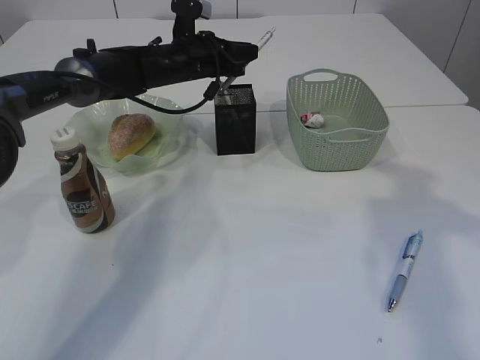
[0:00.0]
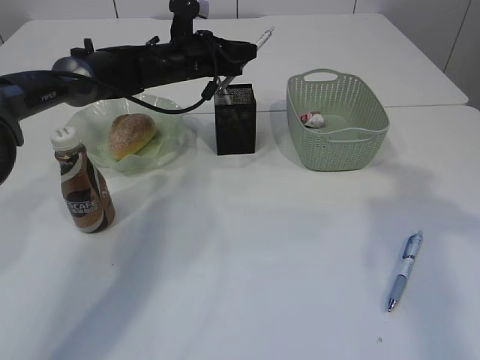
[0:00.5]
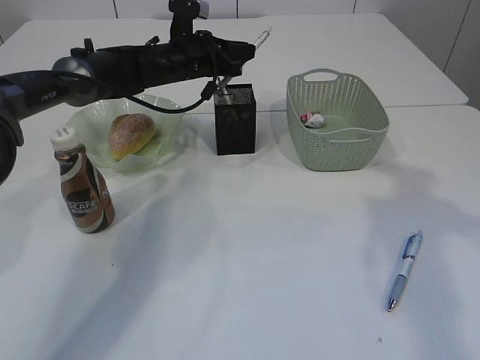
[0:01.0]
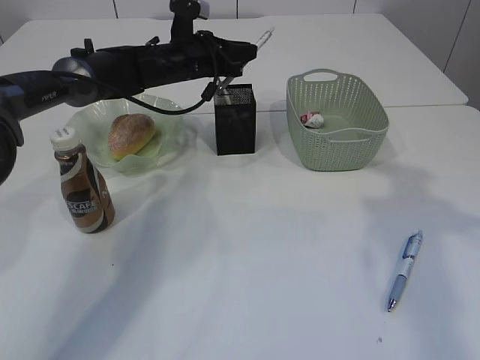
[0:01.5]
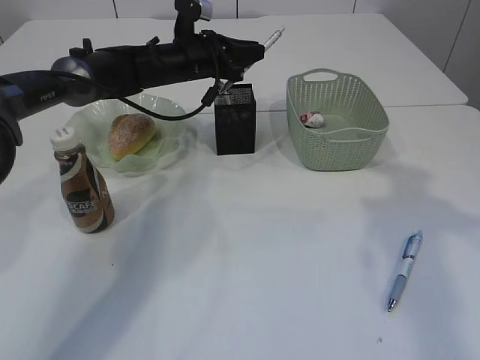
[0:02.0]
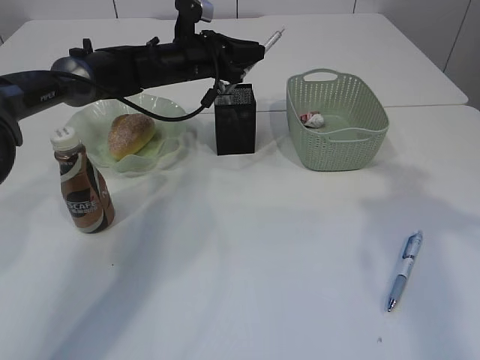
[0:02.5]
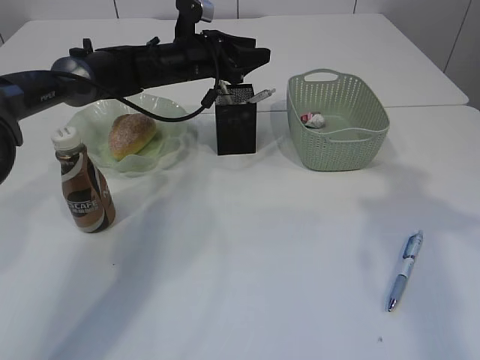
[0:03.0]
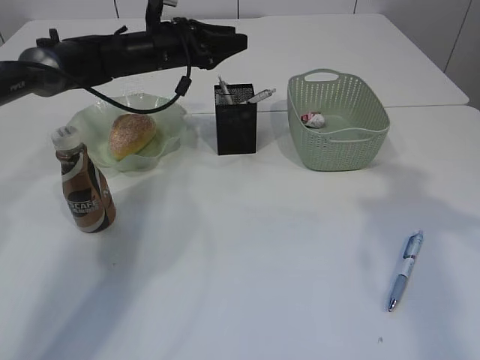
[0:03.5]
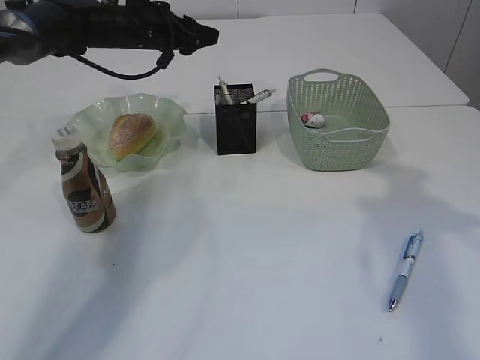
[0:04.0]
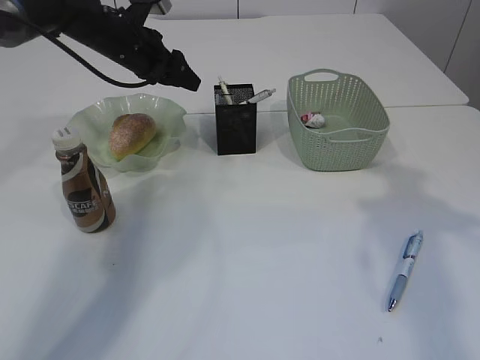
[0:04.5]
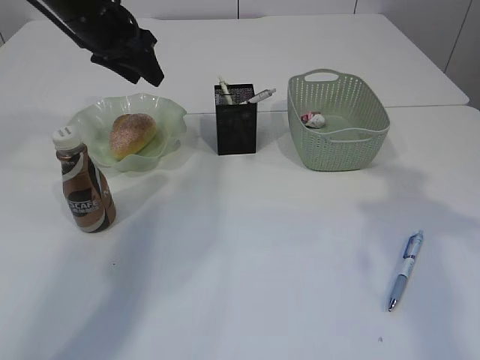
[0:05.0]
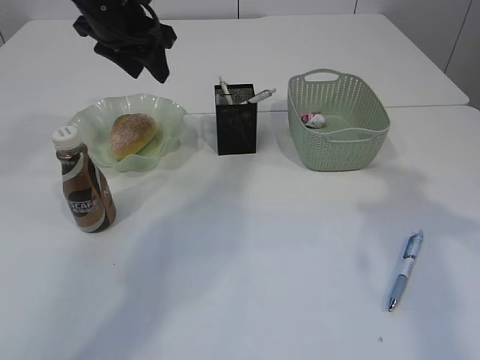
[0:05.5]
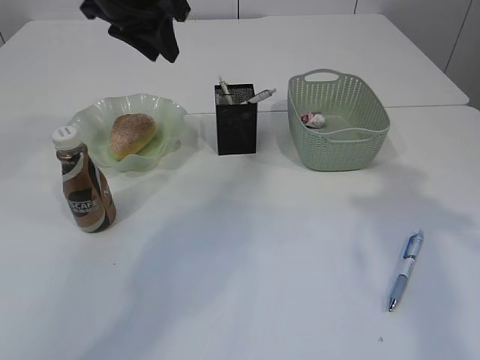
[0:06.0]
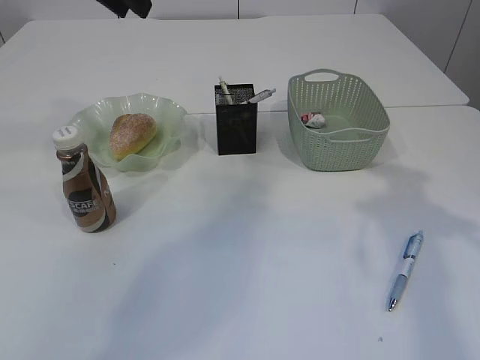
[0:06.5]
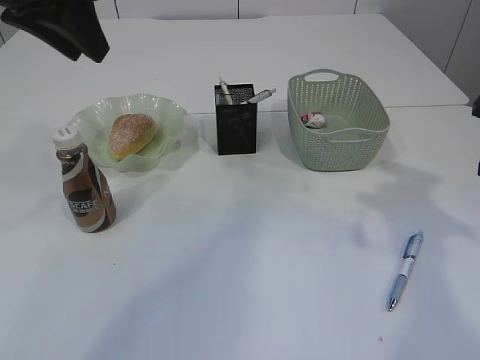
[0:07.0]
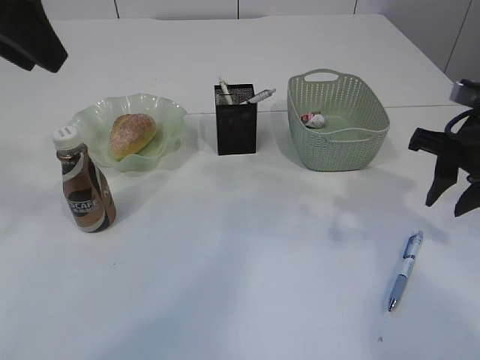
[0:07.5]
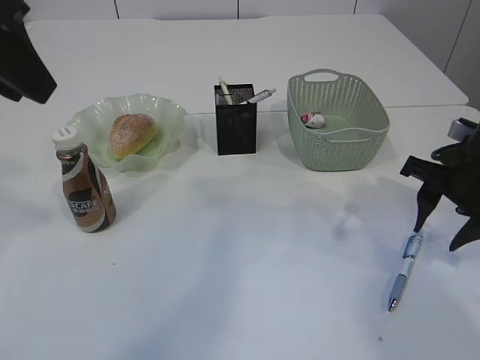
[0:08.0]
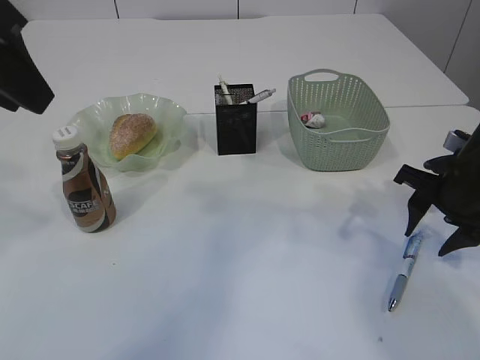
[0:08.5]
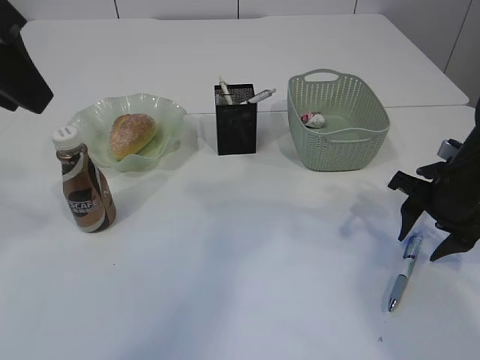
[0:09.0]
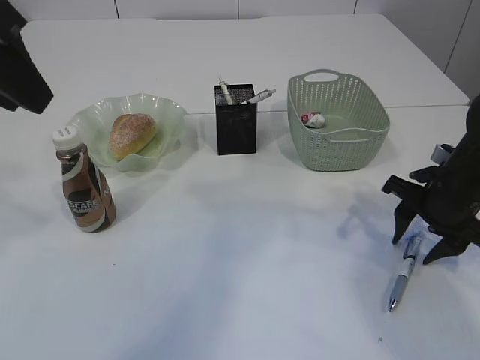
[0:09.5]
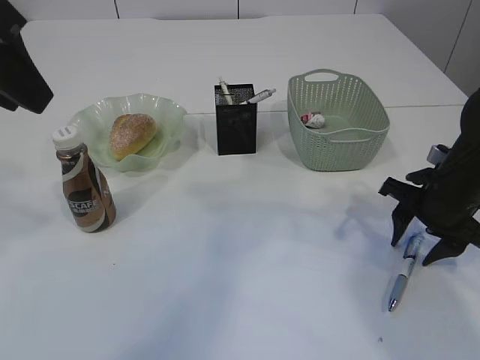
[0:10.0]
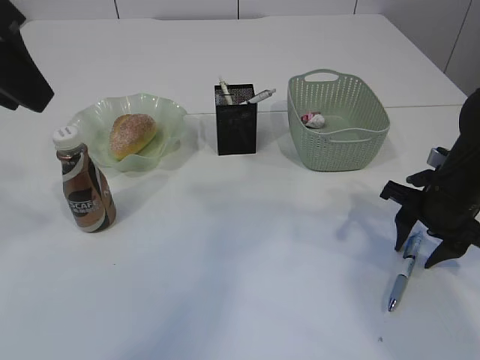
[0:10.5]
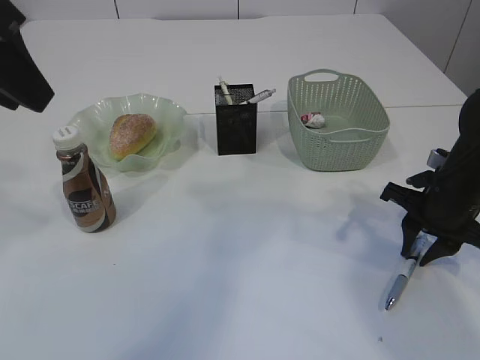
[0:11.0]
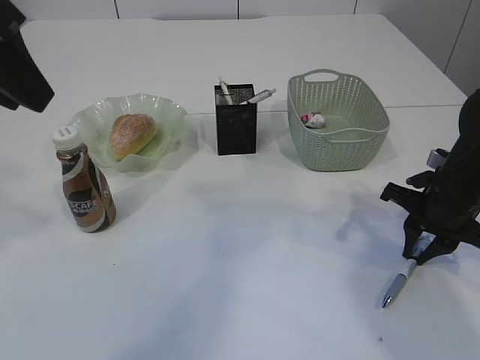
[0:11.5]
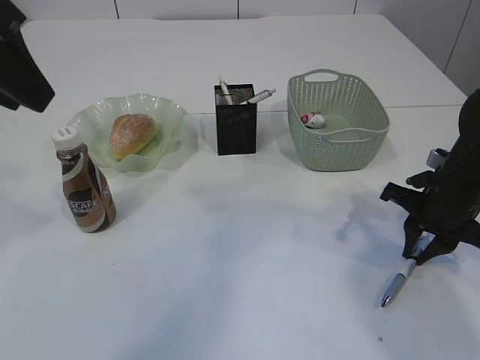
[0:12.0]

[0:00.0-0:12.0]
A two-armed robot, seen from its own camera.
Step, 0.0 to 3.0 s: Place the pen into the pen holder.
0.0 to 2.0 s: The grippers make only small movements.
2.0 to 4.0 s: The left gripper goes approximately 5 cm to the left, and opens its fingers.
4.0 to 6.0 s: The left gripper travels backward and upward by some 15 cm.
6.0 to 8.0 s: The left gripper heads backward, covering approximately 20 cm. The right gripper moves downward and forward, approximately 20 cm.
8.0 to 10.0 s: The right gripper goes roughly 5 cm downward.
10.0 to 12.0 s: The right gripper closes up.

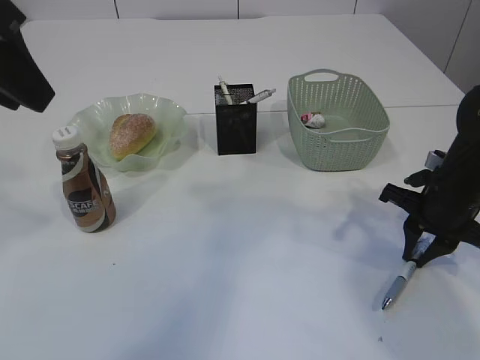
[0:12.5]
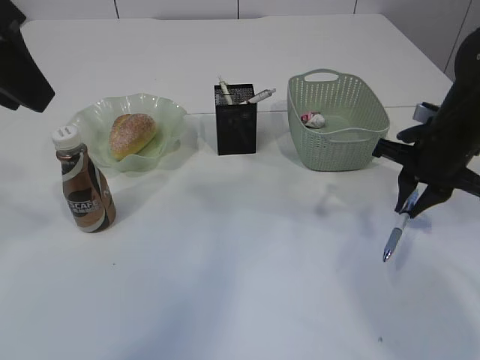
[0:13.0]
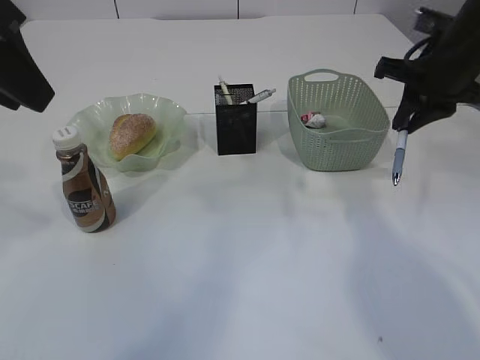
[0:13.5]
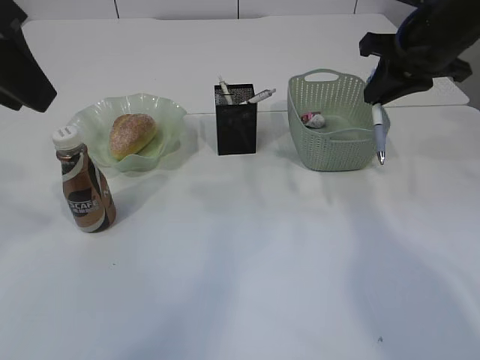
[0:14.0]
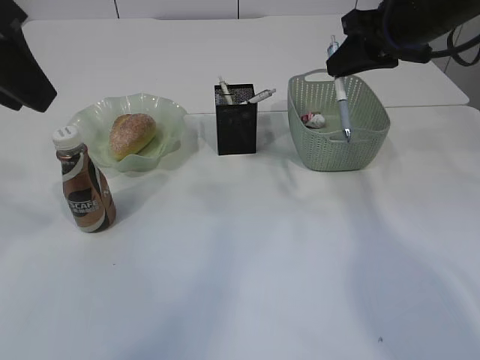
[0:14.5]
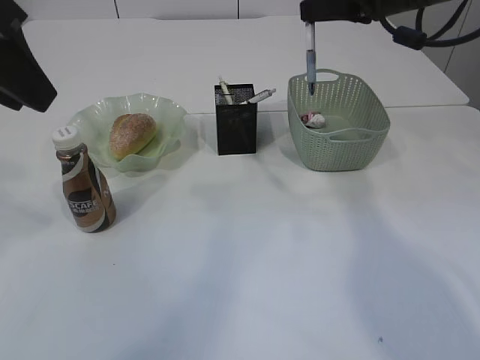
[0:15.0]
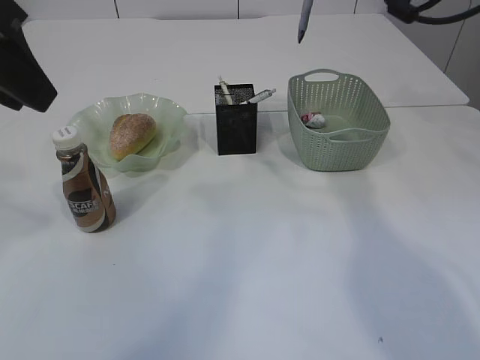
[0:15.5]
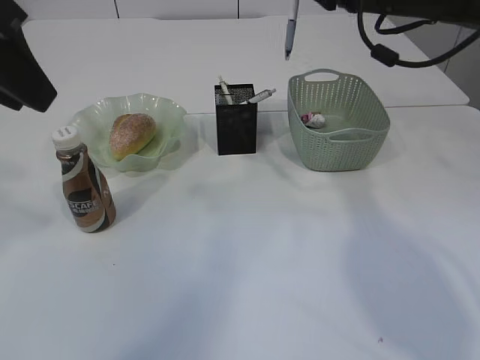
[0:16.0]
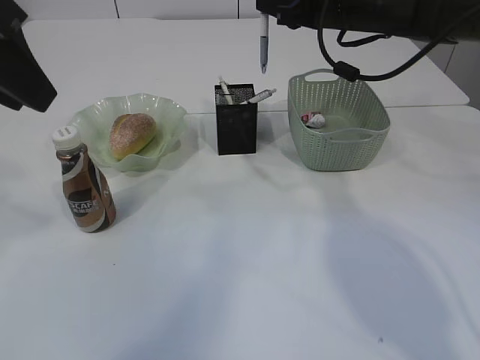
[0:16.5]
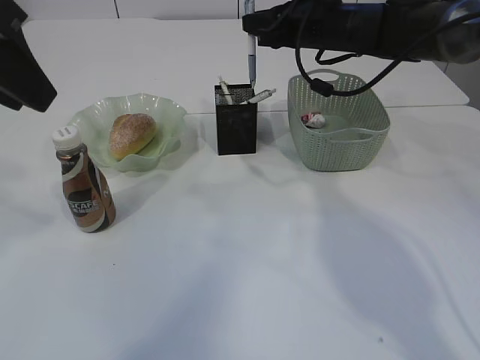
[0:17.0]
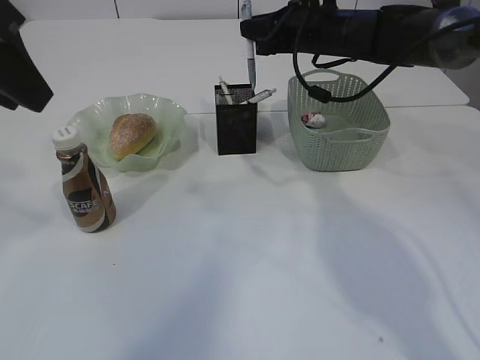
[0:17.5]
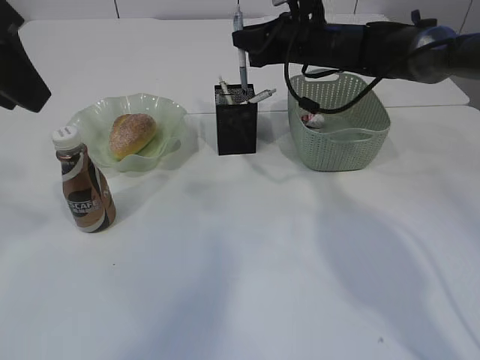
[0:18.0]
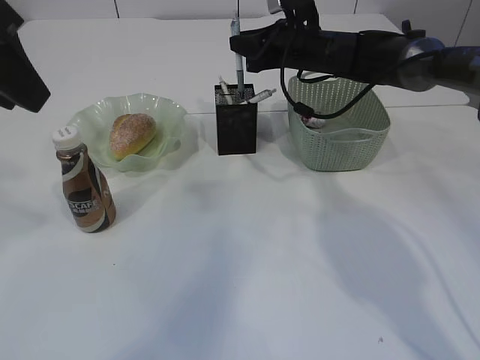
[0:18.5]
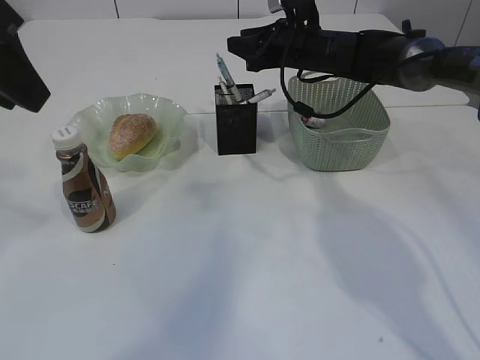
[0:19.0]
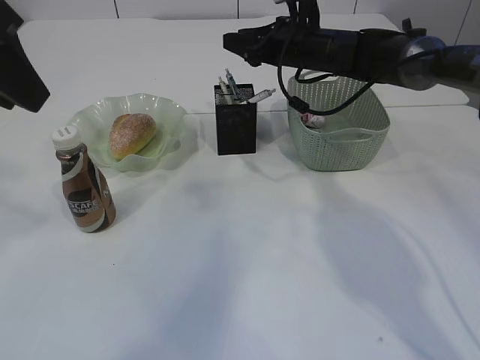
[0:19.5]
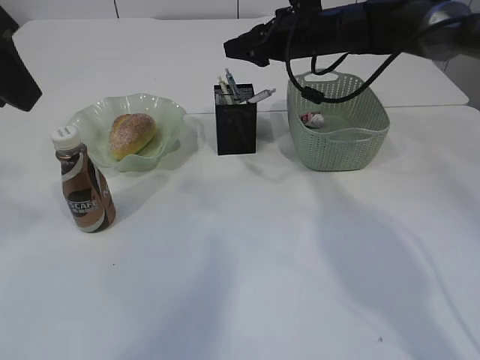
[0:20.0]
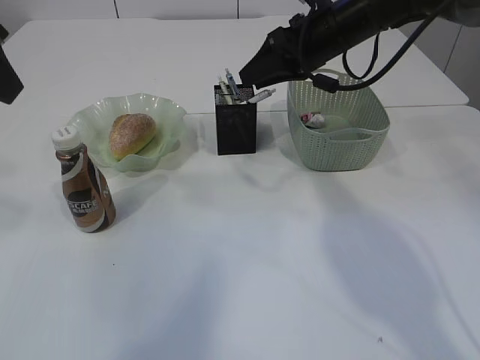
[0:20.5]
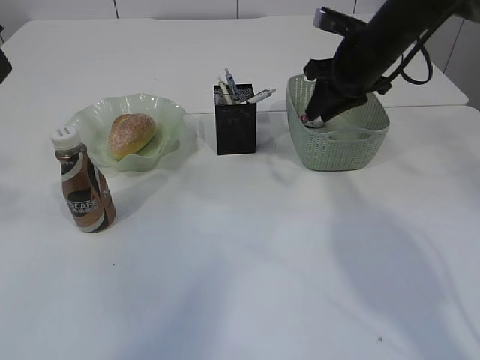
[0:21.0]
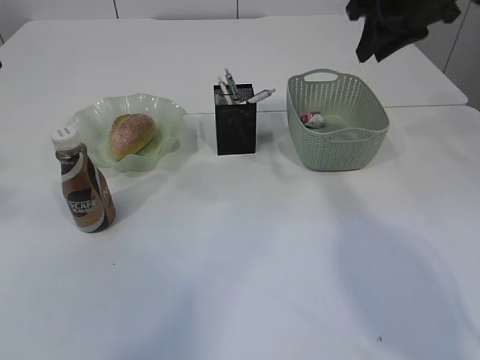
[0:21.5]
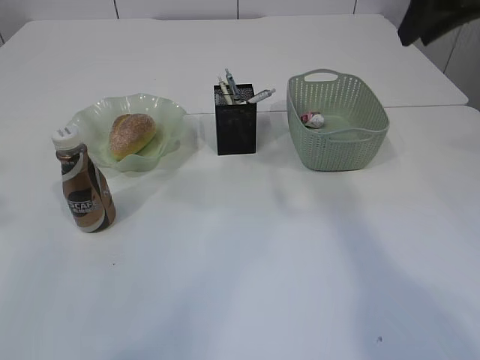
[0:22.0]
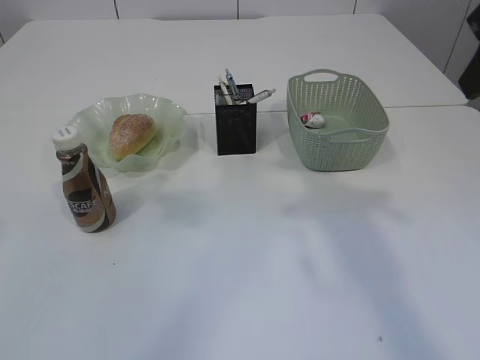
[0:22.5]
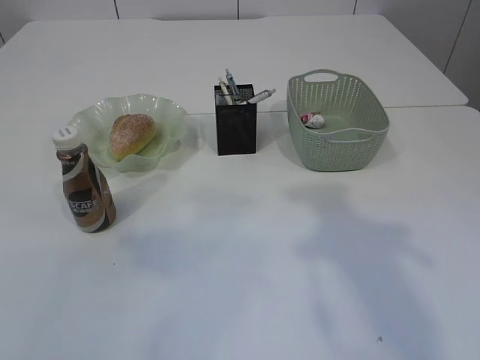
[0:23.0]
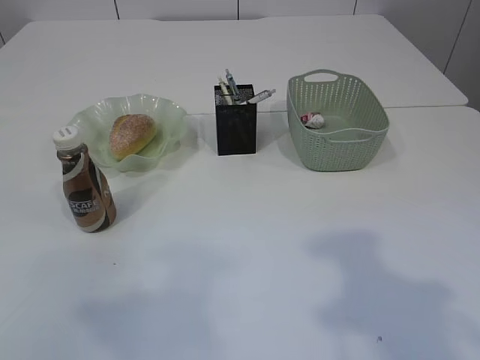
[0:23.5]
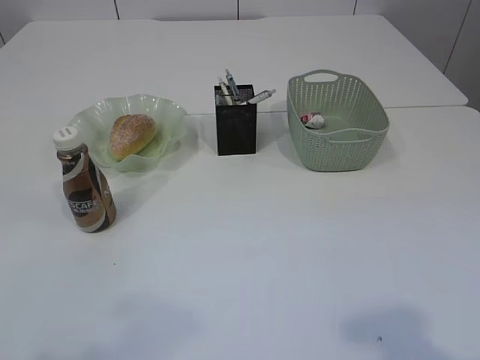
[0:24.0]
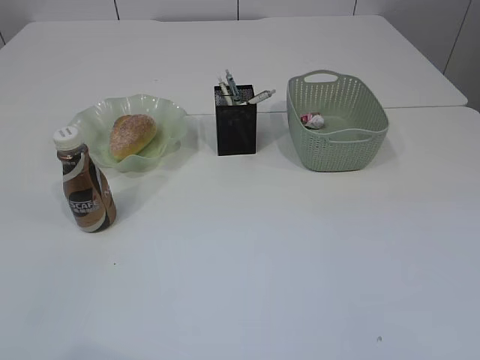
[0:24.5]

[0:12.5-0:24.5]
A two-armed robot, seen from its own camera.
Step, 13.5 to 19.5 s: Place the pen into the pen holder.
12.5 to 14.5 s: The right gripper moves upward and forward, approximately 20 cm.
14.5 to 16.5 s: The right gripper travels to the left and forward by roughly 10 cm.
16.5 to 18.5 s: The right gripper moves downward and forward, some 10 cm.
18.5 to 20.5 s: The right gripper travels backward and upward by roughly 10 cm, and opens.
20.5 to 22.5 s: The right gripper travels backward, upward and to the right by about 25 cm.
22.5 to 24.5 s: The right gripper is displaced backward by approximately 30 cm.

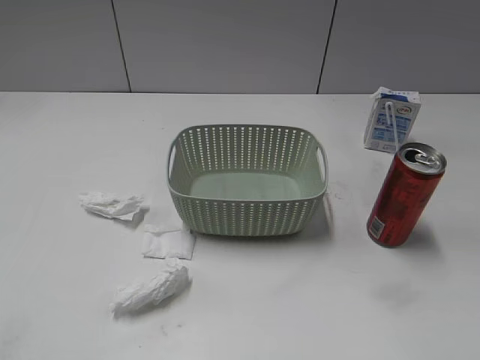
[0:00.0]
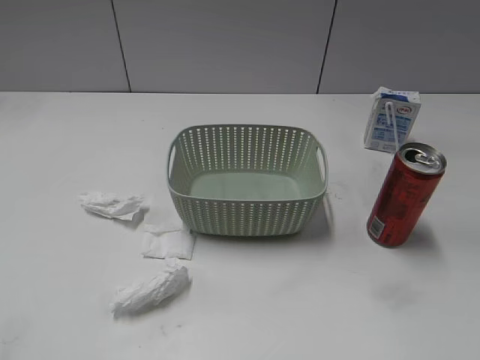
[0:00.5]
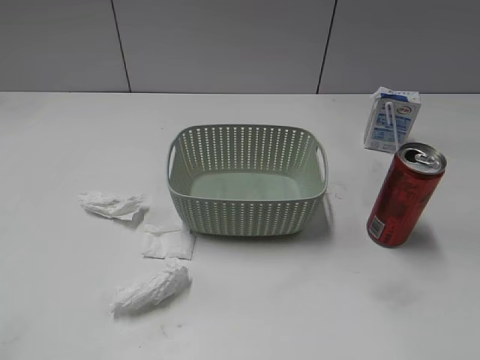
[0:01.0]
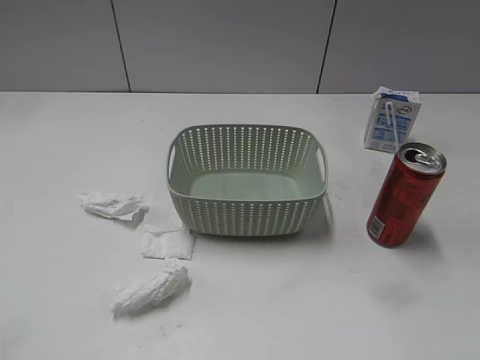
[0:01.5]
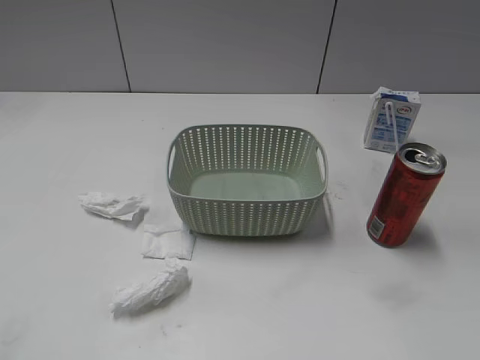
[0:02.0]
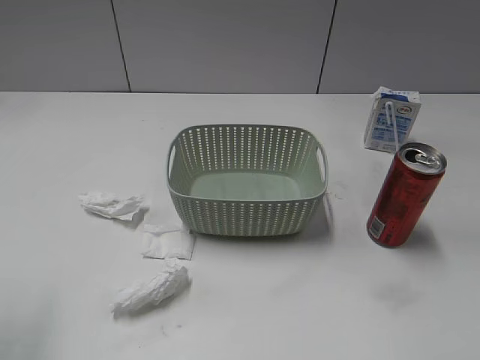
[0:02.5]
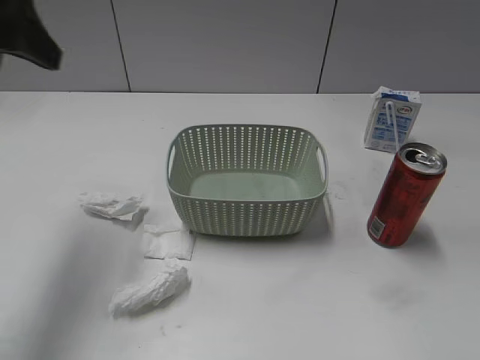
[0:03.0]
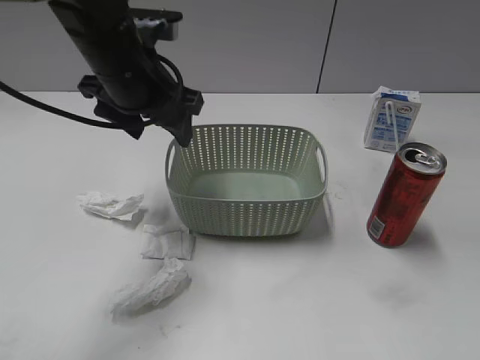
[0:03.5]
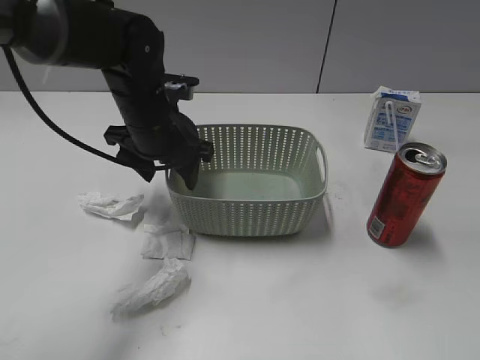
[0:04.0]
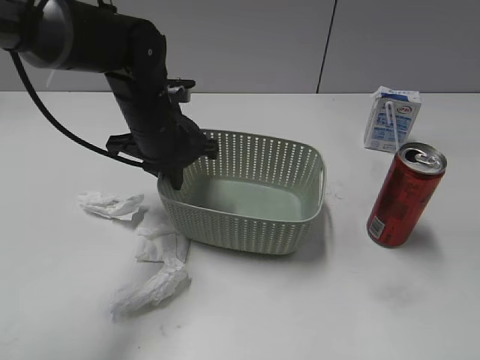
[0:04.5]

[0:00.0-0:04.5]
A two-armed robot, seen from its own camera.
Step, 3.0 to 4.0 s: Grasp the basket with left gripper.
2.0 to 4.5 s: The left gripper travels forward and to the right by approximately 40 cm, and closes its fingers.
